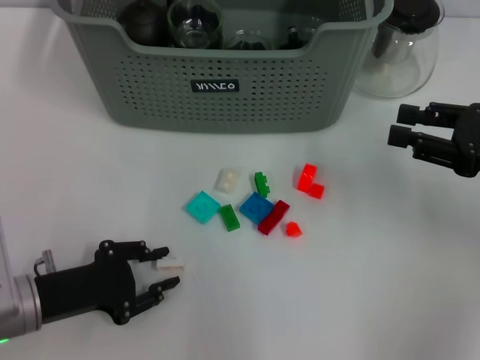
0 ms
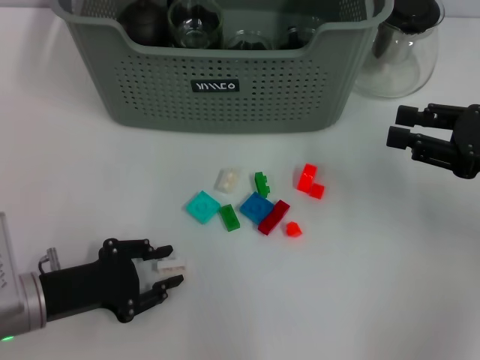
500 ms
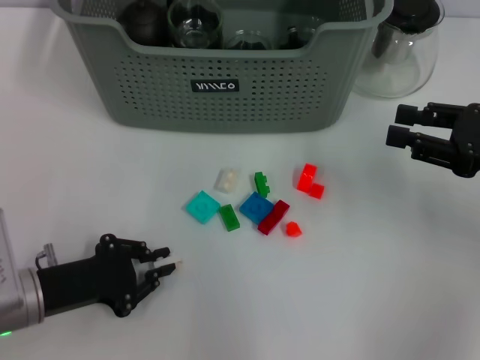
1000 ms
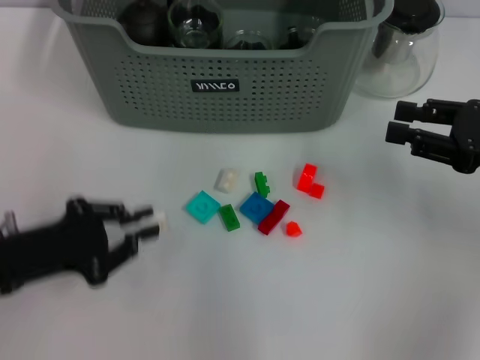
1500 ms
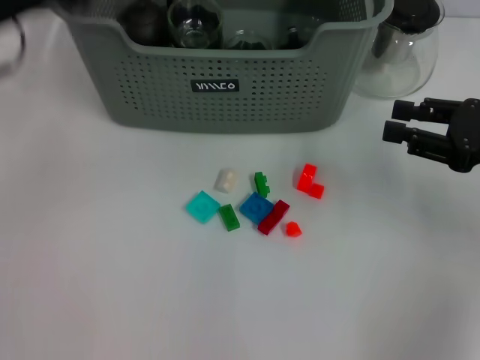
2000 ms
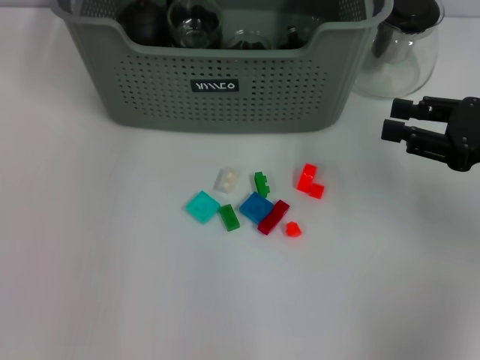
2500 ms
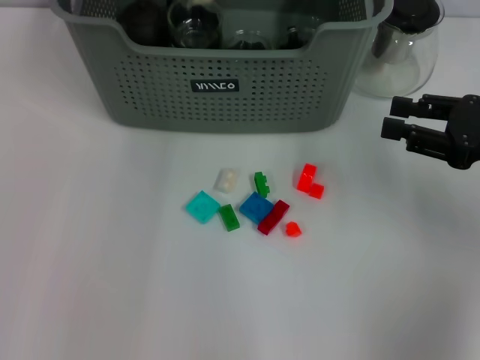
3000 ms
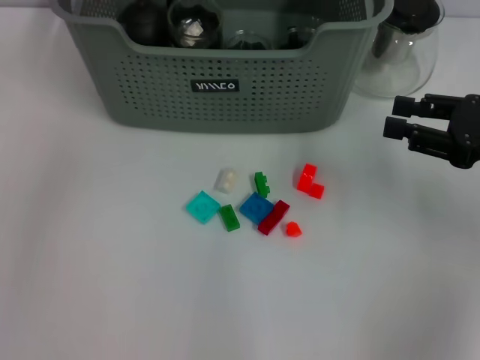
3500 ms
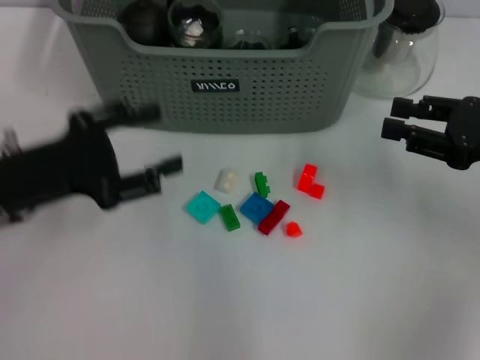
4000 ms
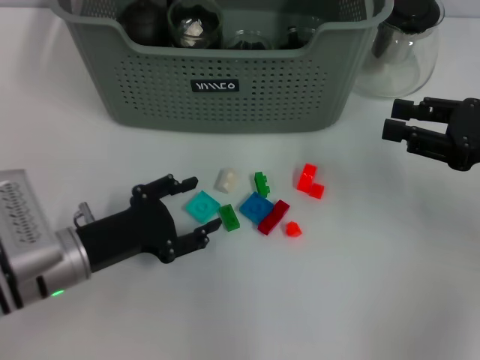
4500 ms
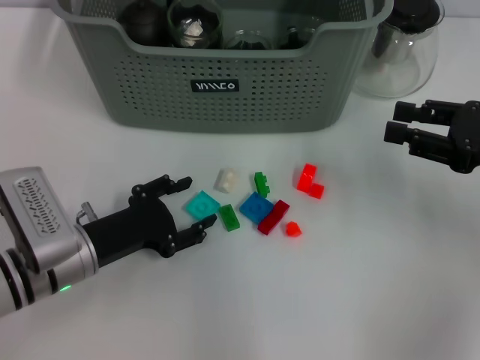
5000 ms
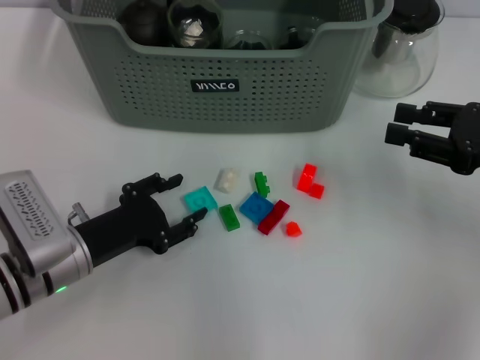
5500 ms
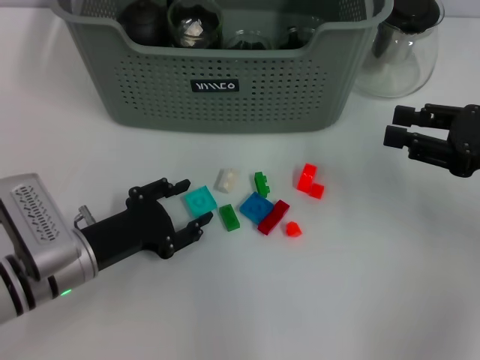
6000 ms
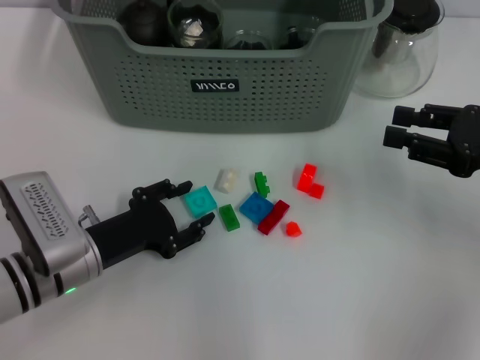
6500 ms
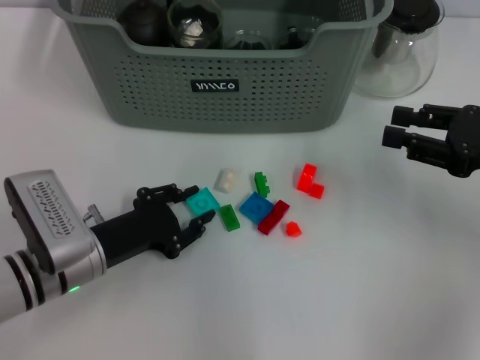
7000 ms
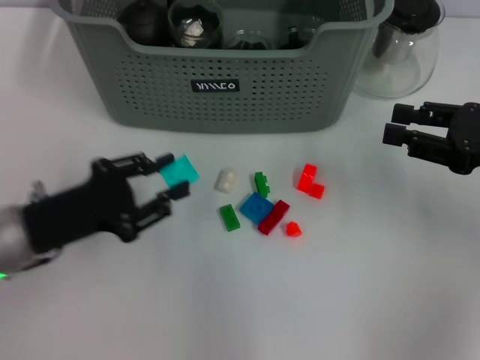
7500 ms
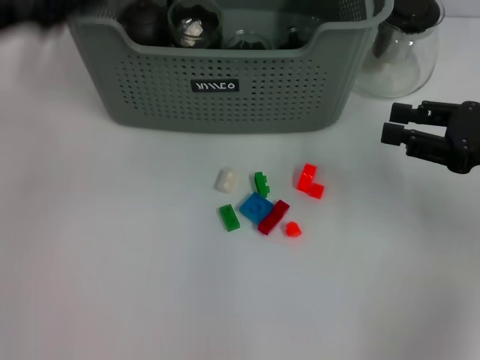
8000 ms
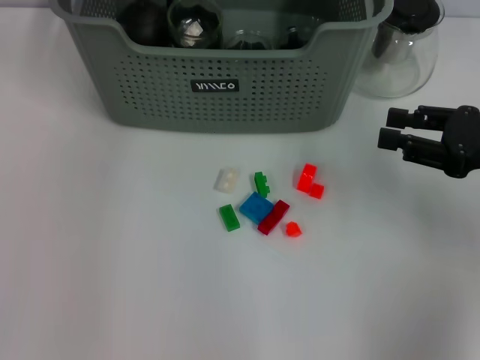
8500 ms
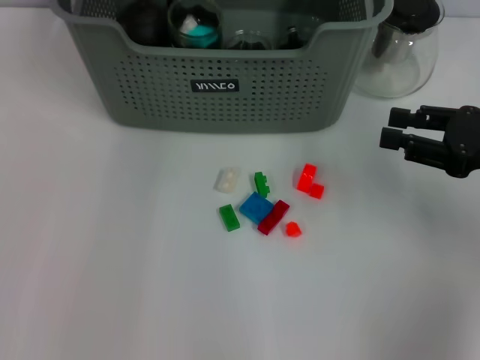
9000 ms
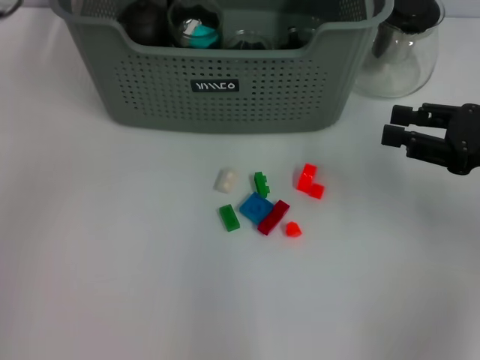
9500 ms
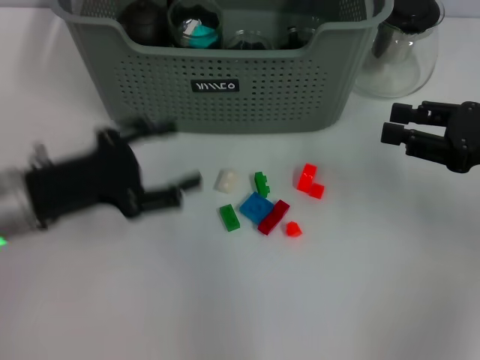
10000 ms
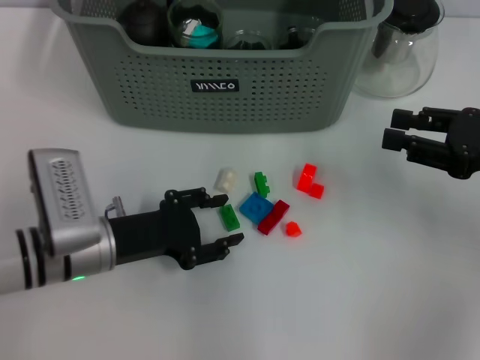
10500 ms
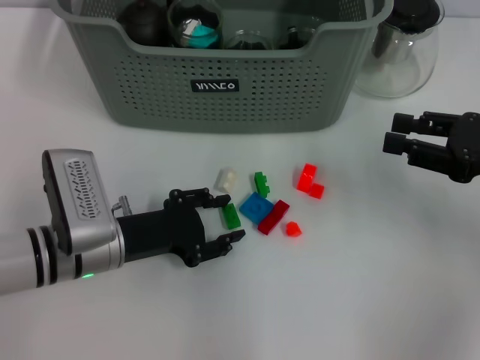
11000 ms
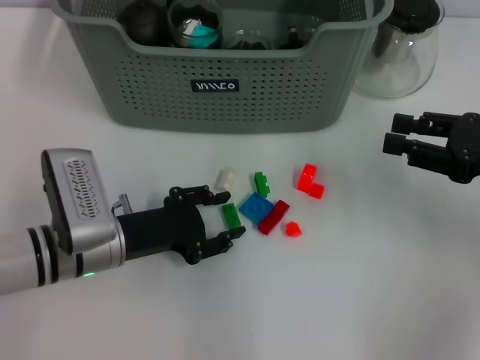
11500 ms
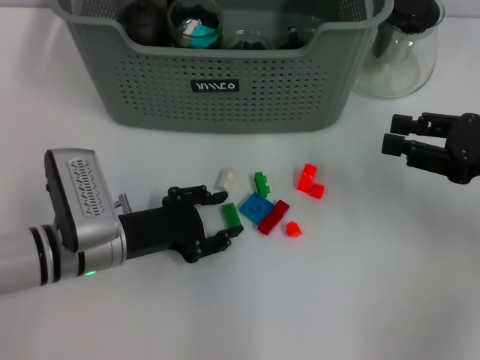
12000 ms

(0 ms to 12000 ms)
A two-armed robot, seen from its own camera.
Task of the whole recording: pick up the teacup on the table and place it into the storage bin, pick up the block on the table and place it into the storage bin.
Step, 1500 ms - 3000 ms: Place the white block in the storage box with left gripper.
Step, 3500 ms - 7000 ms: Grasp the light blue block with left gripper.
Step, 7500 ms - 9000 ms: Place the light blue block in the storage box with left gripper.
0 ms - 2000 ms: The left gripper moves upward and forward, approximately 25 cm.
2000 ms - 4000 ms: The left gripper moves downward, about 5 cm, reaches some 15 cm forward, then returns, and opens up.
4000 ms - 6000 ms: The left gripper shifts approximately 15 cm downward and to the right.
6000 ms - 8000 ms: The left gripper moves upward and forward, some 25 cm.
8000 ms - 10000 ms: The left gripper is displaced downward by some 10 cm, goes forward and returns, roughly 15 cm each way, and opens its fingers.
10000 ms - 12000 ms: The left gripper travels downward and to the right by roughly 10 cm.

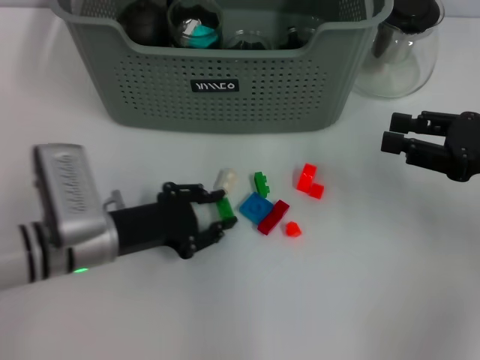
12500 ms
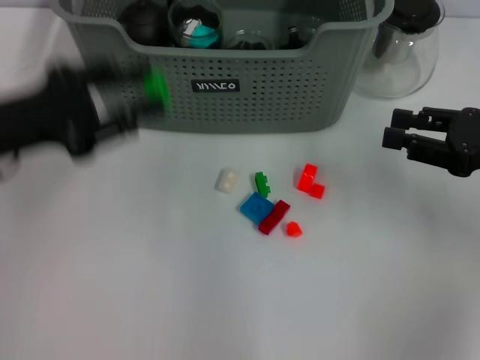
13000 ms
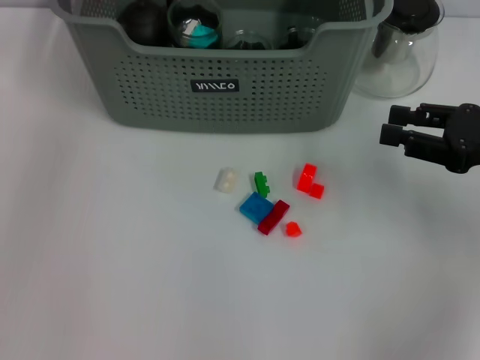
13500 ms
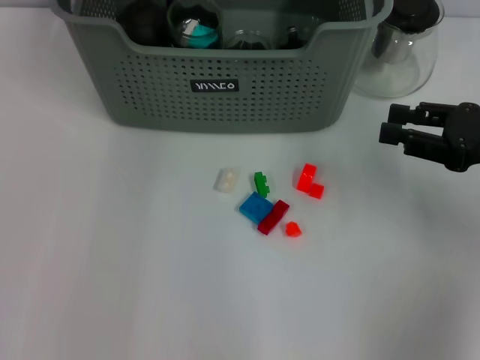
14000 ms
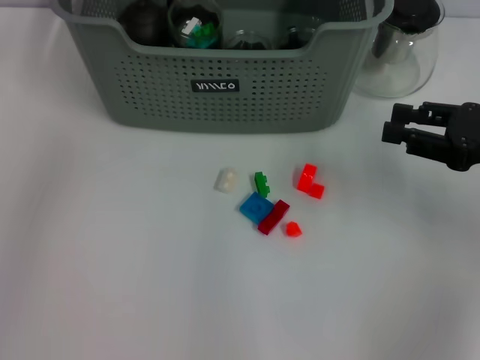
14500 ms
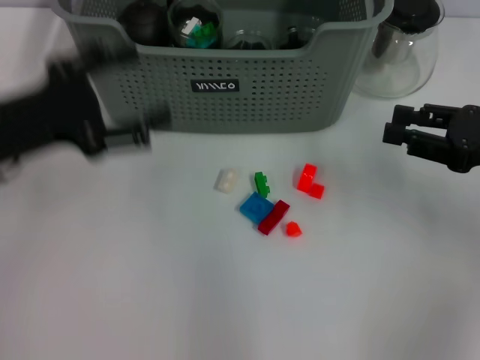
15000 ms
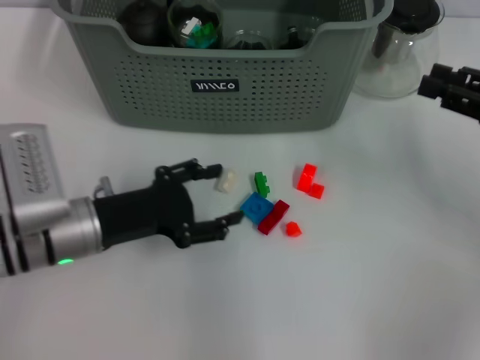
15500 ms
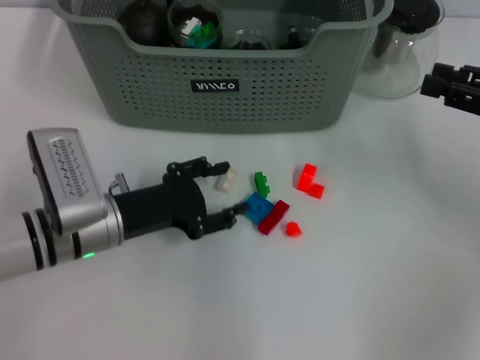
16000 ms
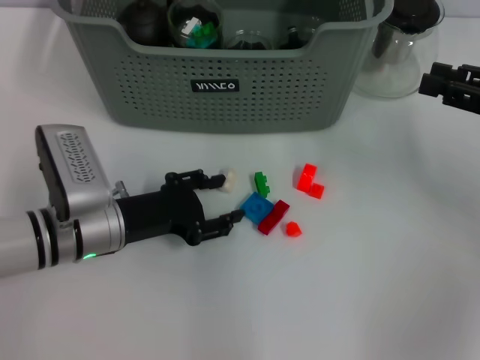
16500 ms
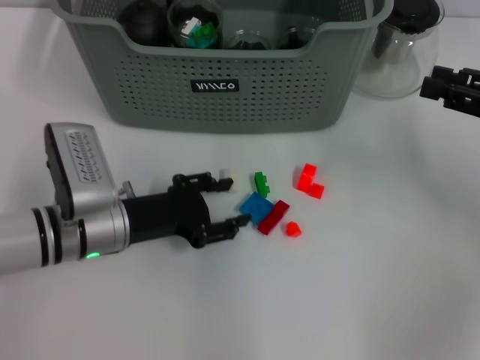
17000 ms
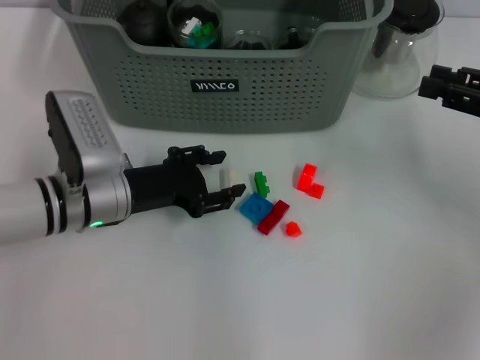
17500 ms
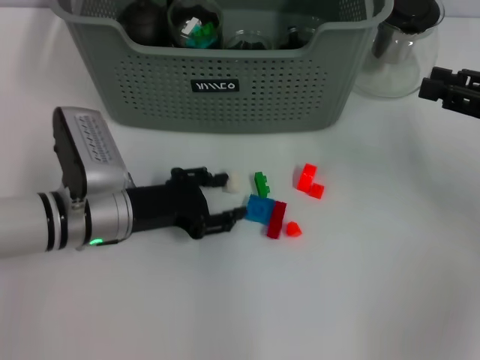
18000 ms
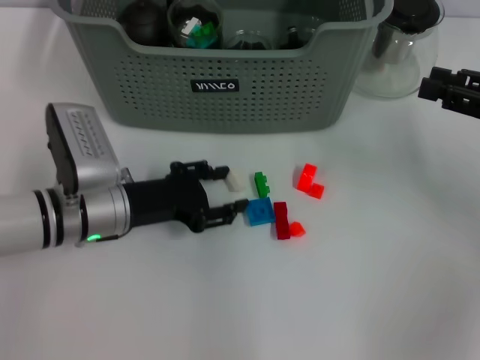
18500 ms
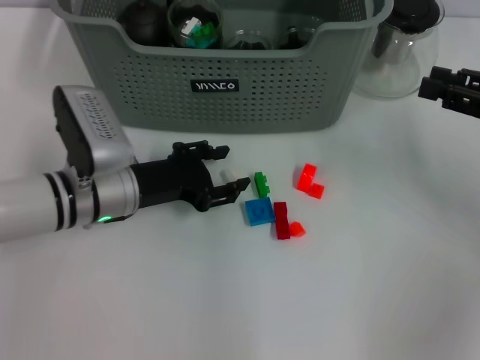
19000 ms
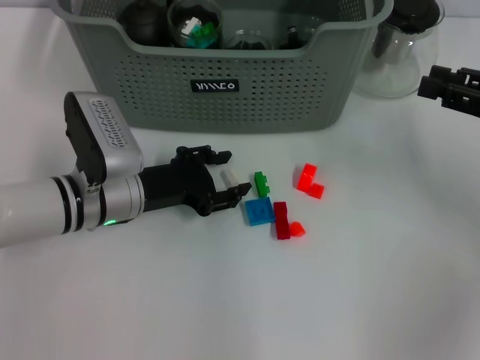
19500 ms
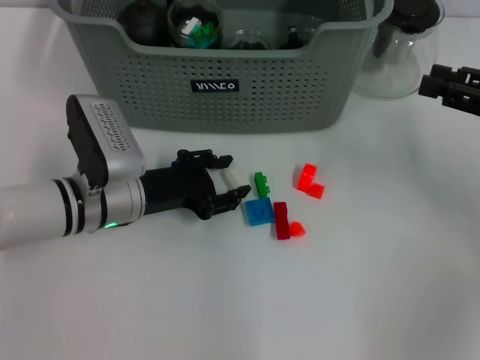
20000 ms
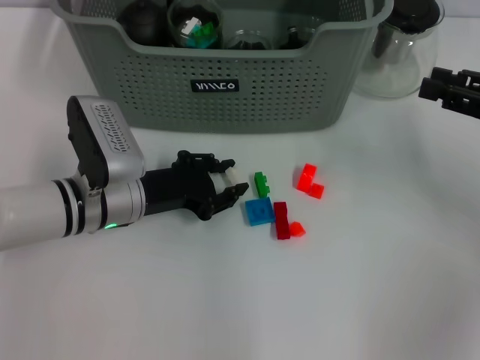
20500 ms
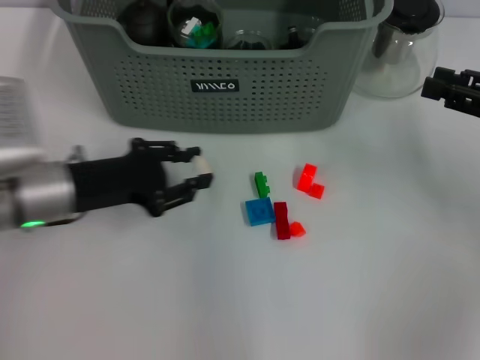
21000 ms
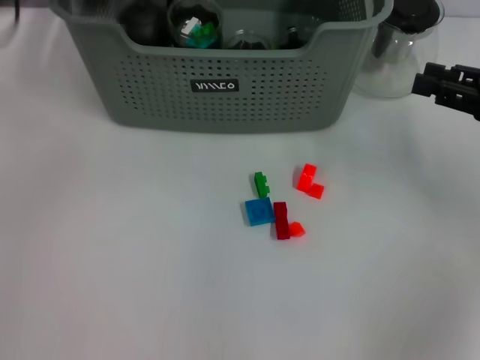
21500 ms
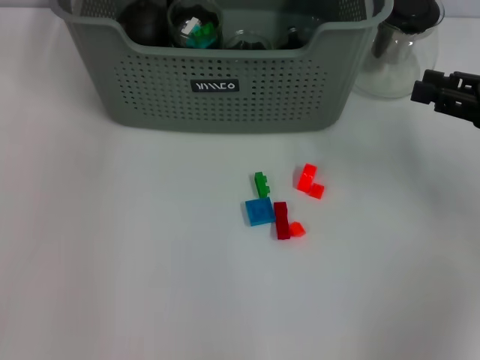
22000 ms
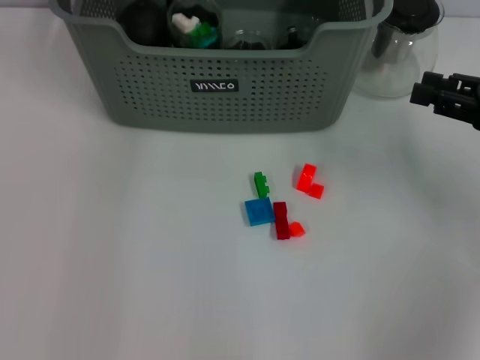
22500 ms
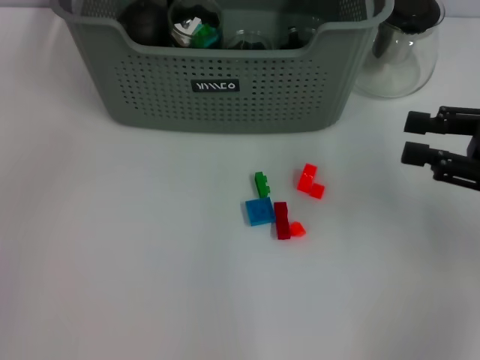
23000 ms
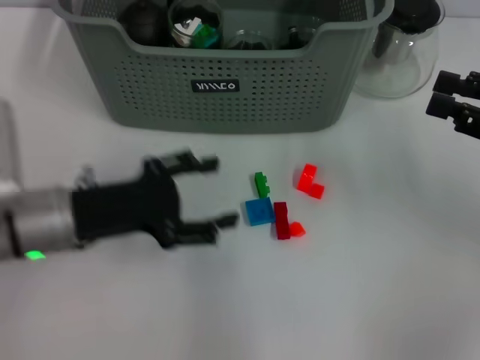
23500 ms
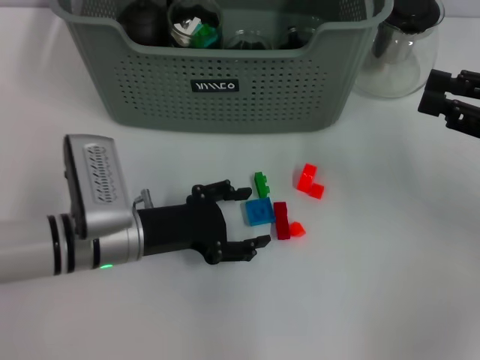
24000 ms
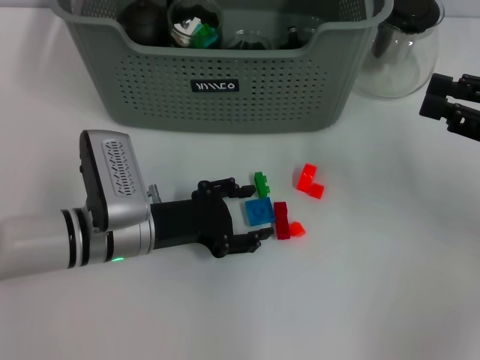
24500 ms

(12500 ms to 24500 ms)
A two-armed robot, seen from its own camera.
Task of the whole recording: pick up the teacup on the table and place it into the storage bin, pick up the block on the table and place it into the storage bin.
Step, 12500 ms - 14000 ms: Place the green block in the storage box with left gripper.
Step, 14500 ms - 20500 ms: Grasp the white block with left gripper.
Step, 21000 ms - 22000 ms: Place the white block in the storage box with left gripper.
12500 ms - 14500 ms: The left gripper swings up and down, approximately 25 cm each way, with 2 reversals, and opens its fingers.
14500 ms - 16500 ms: The left gripper travels downward and backward by about 30 cm.
16500 ms - 20500 ms: The grippers make only small movements.
20500 ms - 22500 ms: The left gripper is displaced upward and forward by about 25 cm.
22500 ms - 24500 ms: The left gripper moves downward and backward, some 30 cm.

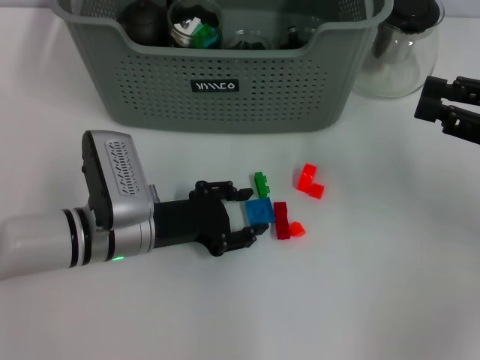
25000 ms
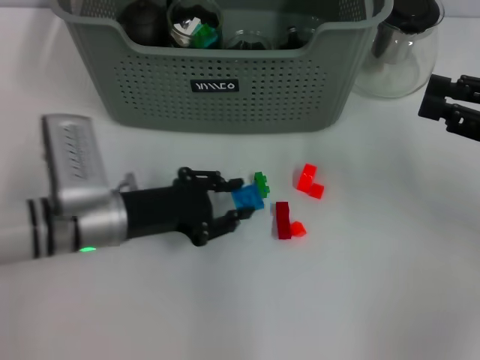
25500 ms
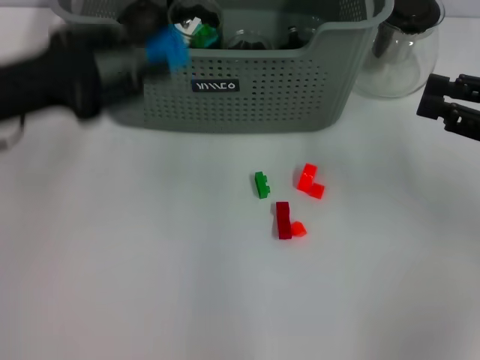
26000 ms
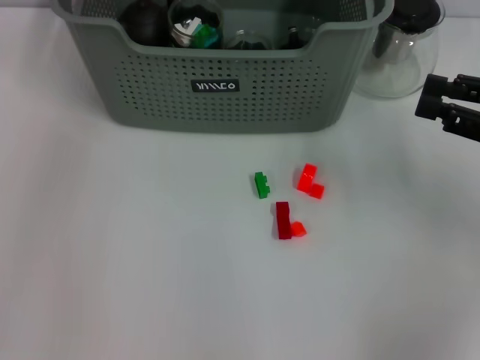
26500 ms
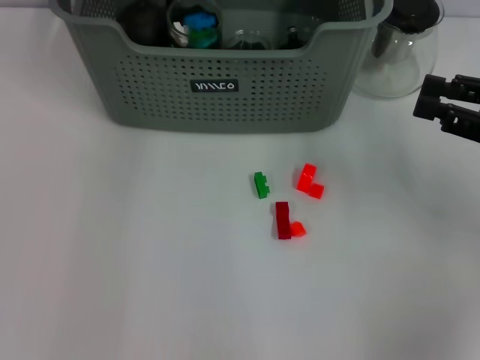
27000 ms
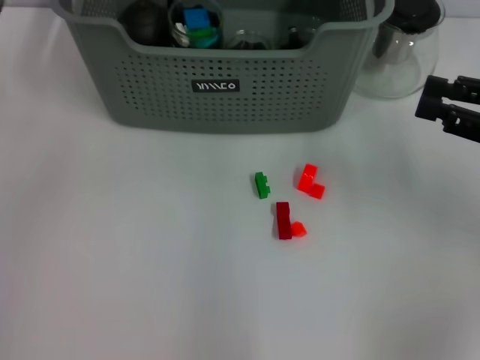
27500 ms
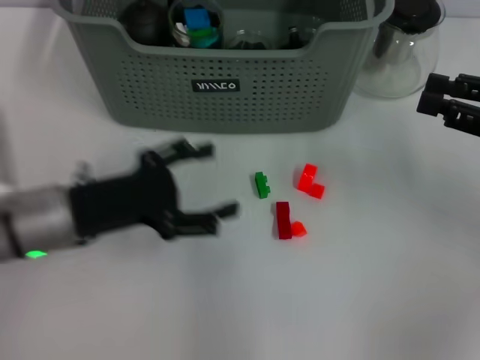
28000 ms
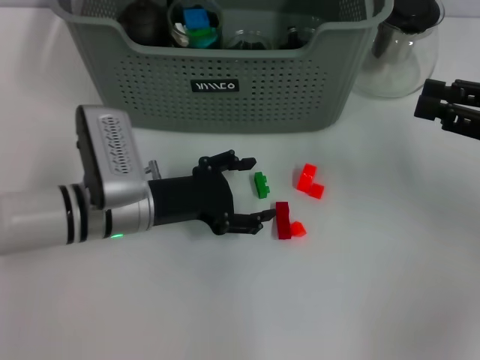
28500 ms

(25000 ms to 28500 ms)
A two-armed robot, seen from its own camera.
Task of the whole recording: pick up the teacup on the table and place it into the storage bin, pick up the block on the table and place it into the storage bin.
Step, 25500 ms - 27000 ms: Place the dark blue block in the storage box with left gripper.
25000 ms - 27000 ms: The left gripper travels upward and forward by some 30 cm.
27000 ms - 28500 ms: The left gripper goes approximately 25 cm downward and backward, and opens its fingers.
